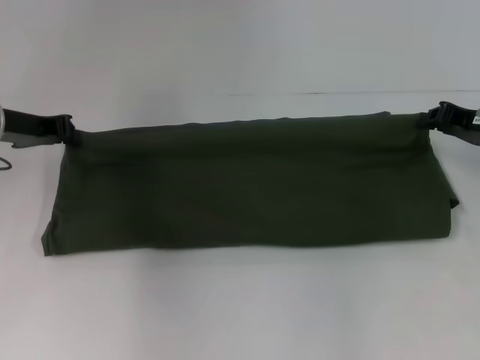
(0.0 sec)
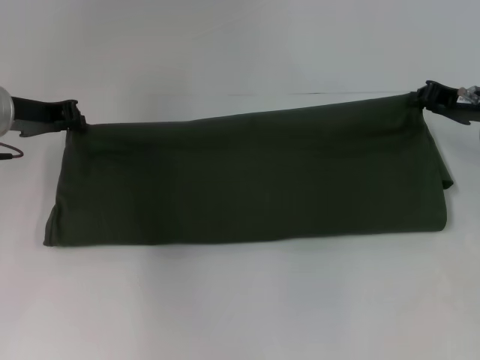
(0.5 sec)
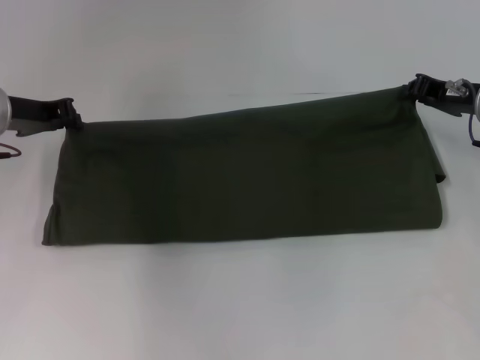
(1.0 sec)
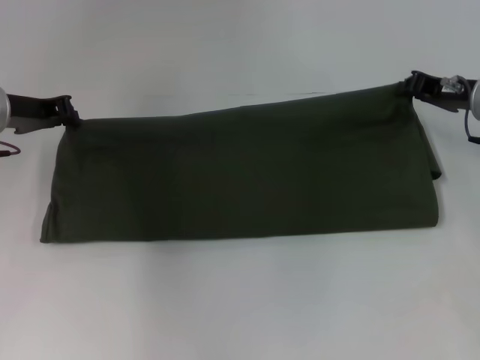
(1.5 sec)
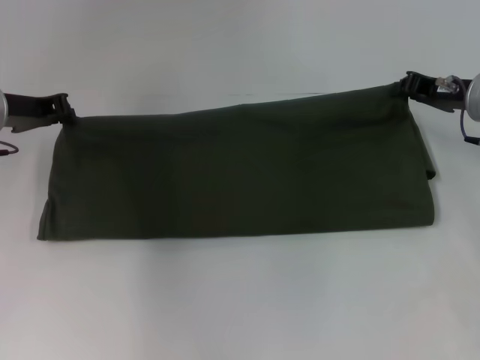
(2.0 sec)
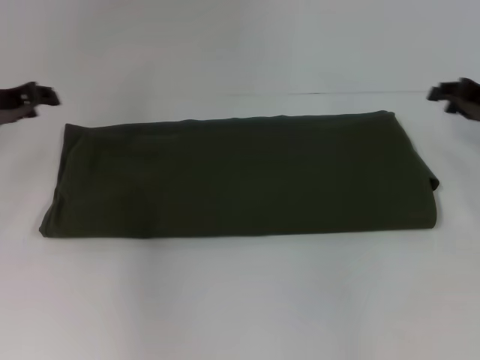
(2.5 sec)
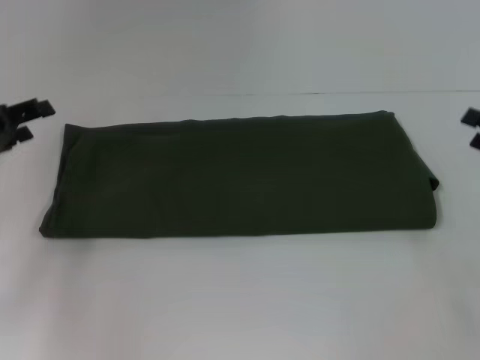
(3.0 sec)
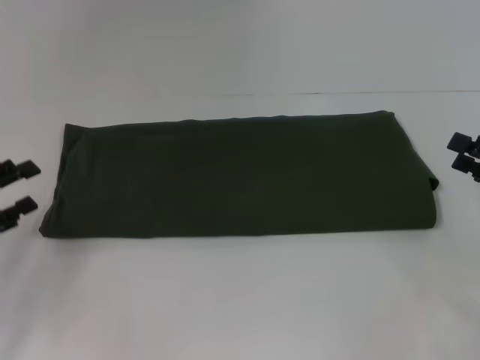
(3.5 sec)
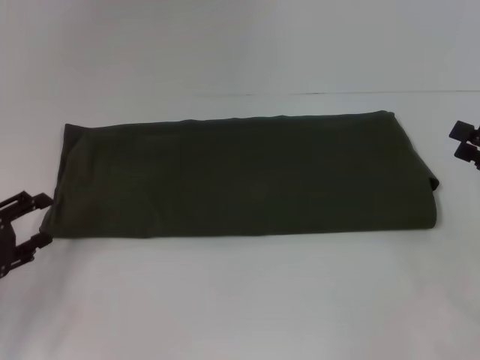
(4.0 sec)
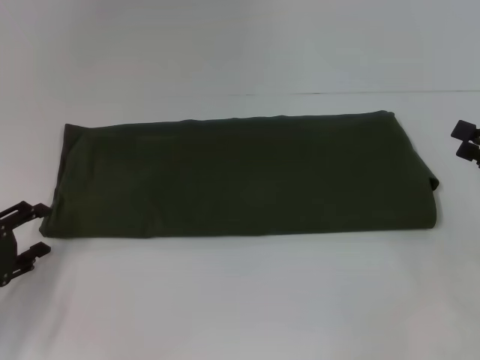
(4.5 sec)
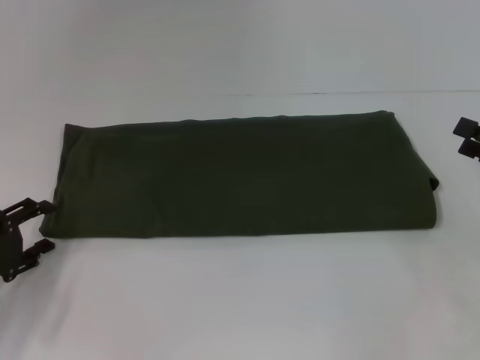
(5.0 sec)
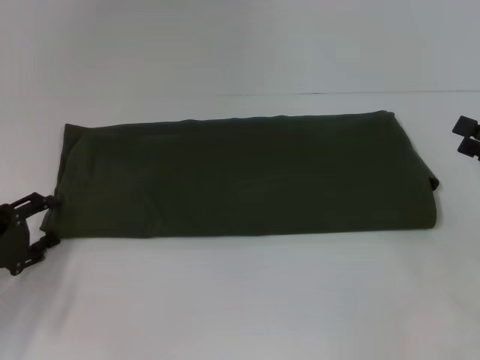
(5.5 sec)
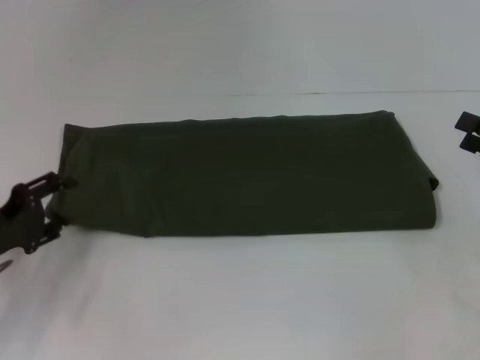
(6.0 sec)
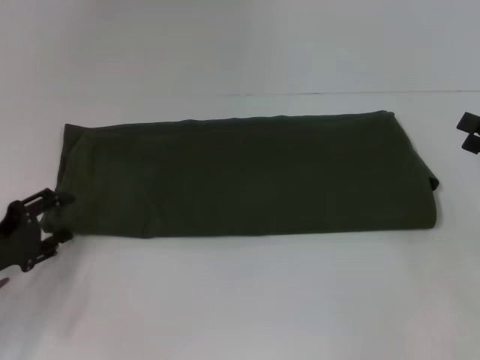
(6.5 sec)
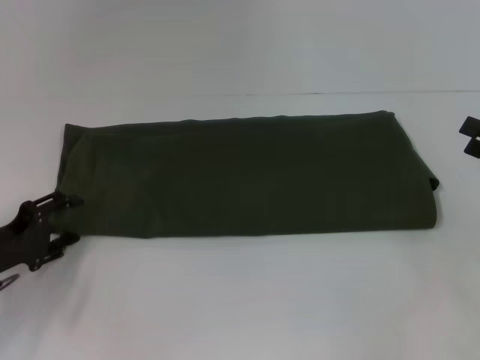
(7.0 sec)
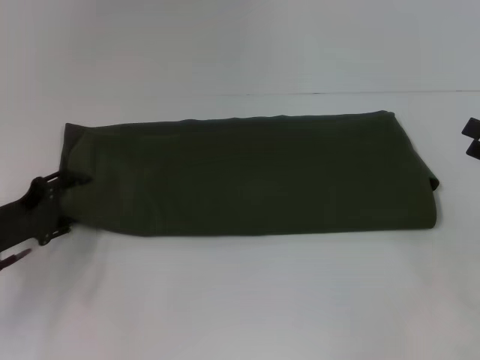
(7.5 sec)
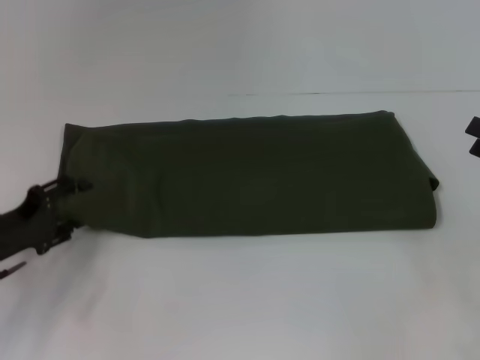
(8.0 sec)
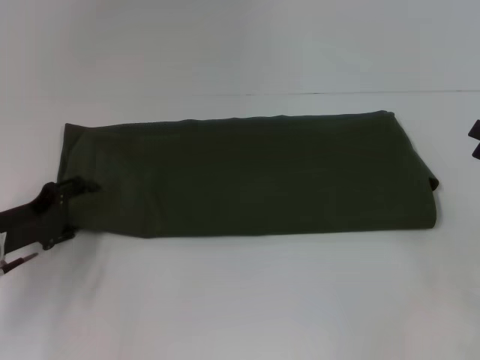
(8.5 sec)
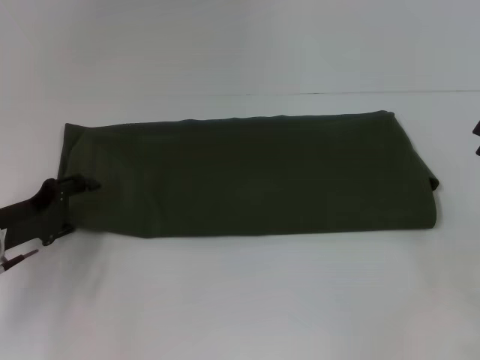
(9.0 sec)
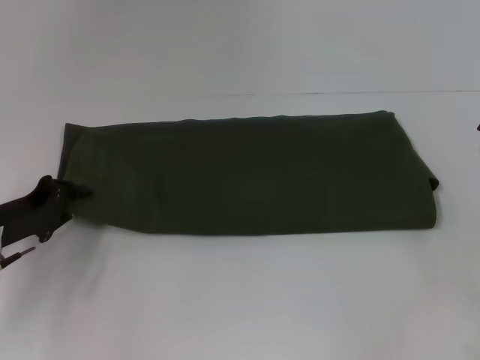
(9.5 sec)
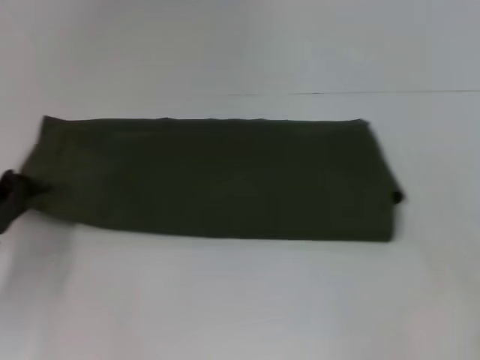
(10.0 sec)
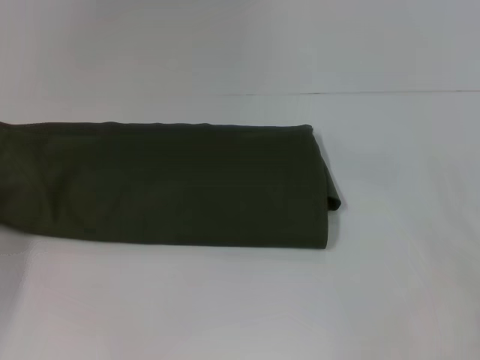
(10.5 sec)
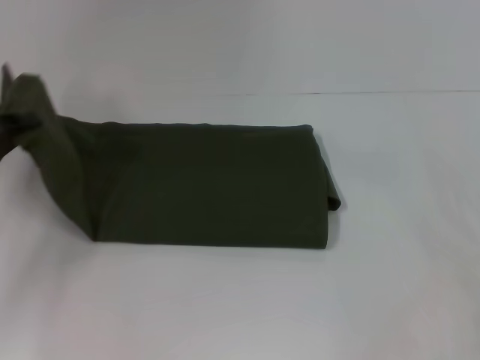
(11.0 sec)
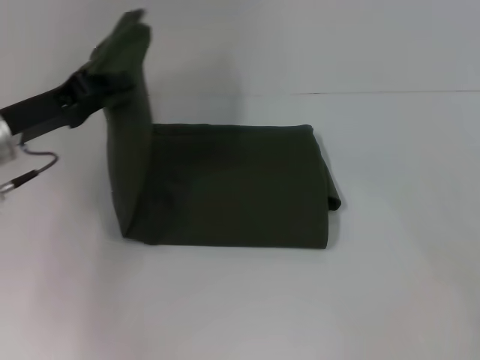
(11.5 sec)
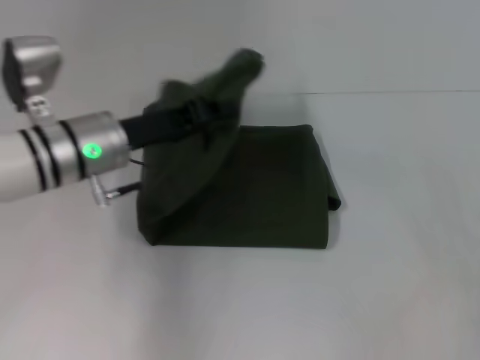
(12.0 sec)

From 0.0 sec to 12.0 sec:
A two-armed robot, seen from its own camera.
Step, from 0.0 sec to 2.0 sec: Fold the clothes with your right hand.
From 0.0 sec to 2.0 sec: The right gripper ends up about 5 cm from where it was.
From 2.0 sec to 4.0 sec: The right gripper travels backward and to the right by about 15 cm, and opens its fingers. Meanwhile the left gripper is displaced backward and downward by some 20 cm, and opens its fingers.
From 4.0 sec to 6.0 sec: The grippers move only a little.
From 6.0 sec to 8.0 sec: The grippers make only small movements.
From 8.0 sec to 10.0 sec: The left gripper closes up.
From 10.0 sec to 12.0 sec: The left gripper heads to the right and upward, covering roughly 20 cm.

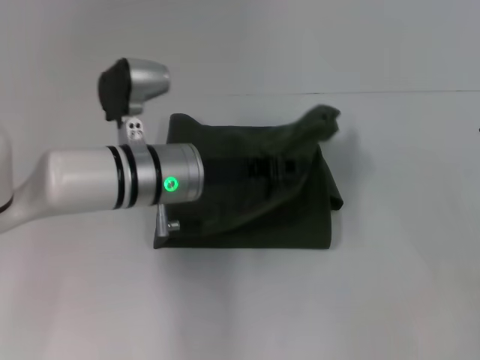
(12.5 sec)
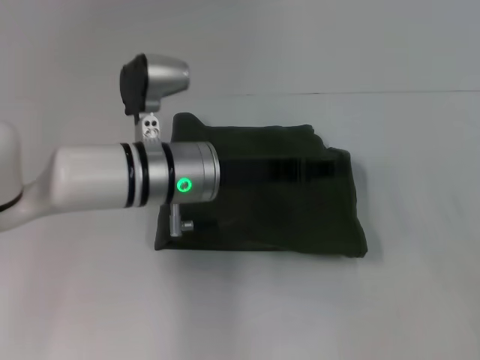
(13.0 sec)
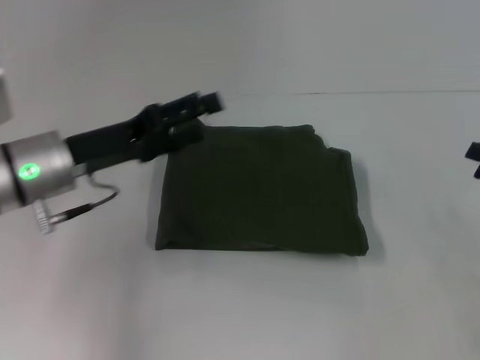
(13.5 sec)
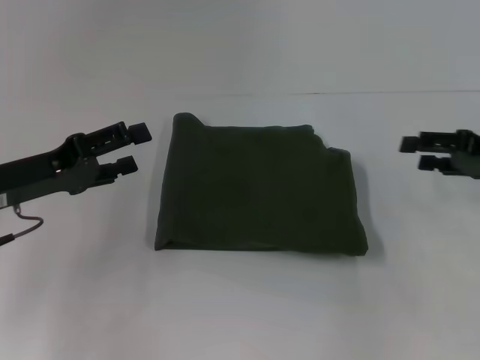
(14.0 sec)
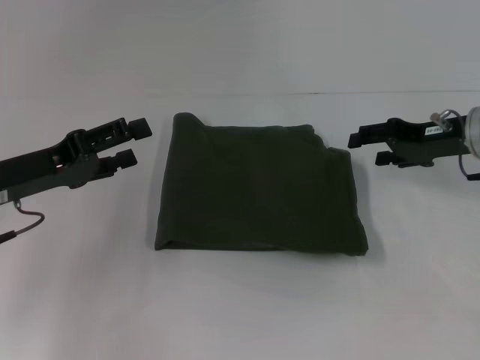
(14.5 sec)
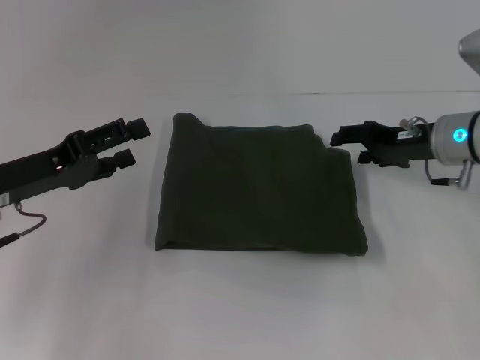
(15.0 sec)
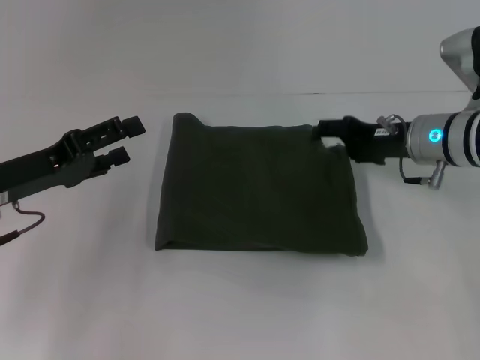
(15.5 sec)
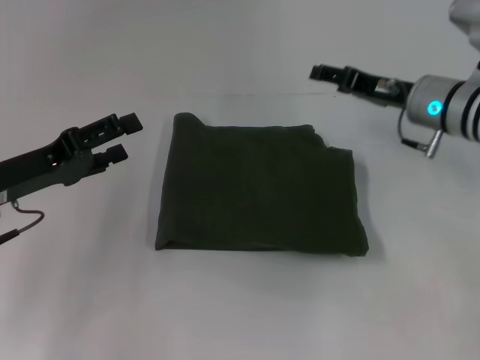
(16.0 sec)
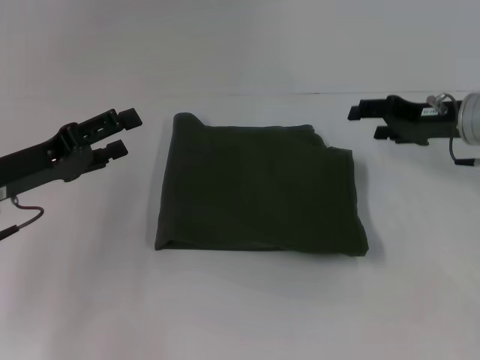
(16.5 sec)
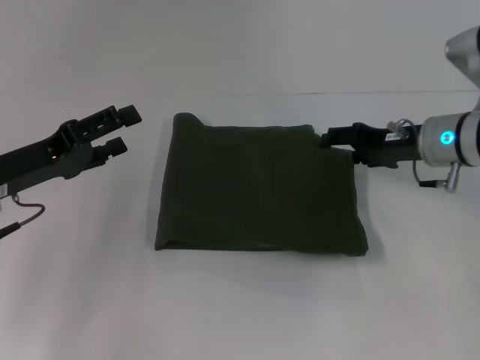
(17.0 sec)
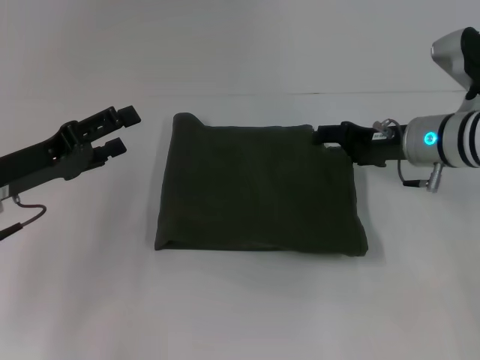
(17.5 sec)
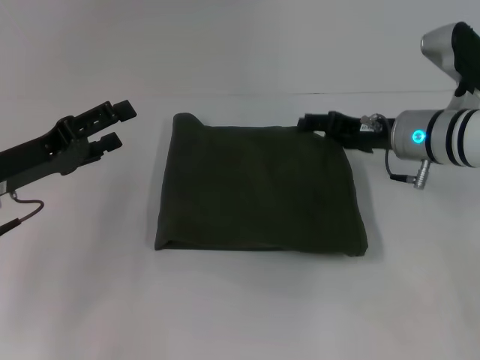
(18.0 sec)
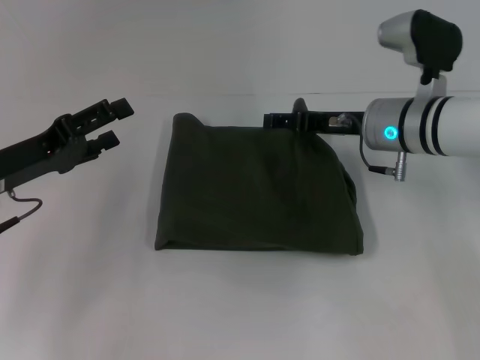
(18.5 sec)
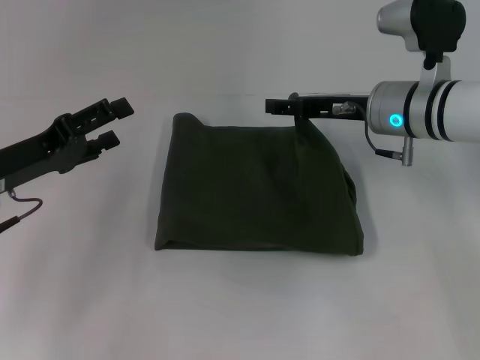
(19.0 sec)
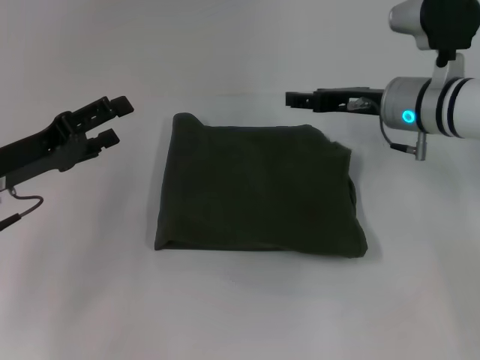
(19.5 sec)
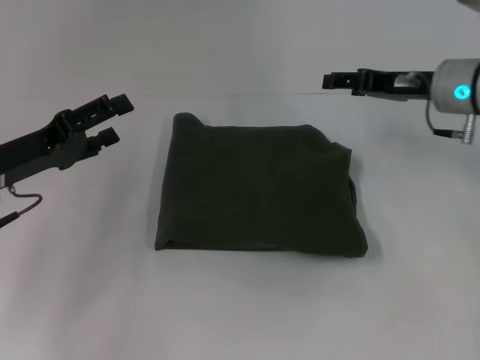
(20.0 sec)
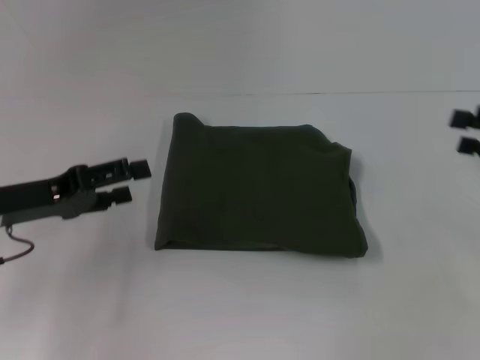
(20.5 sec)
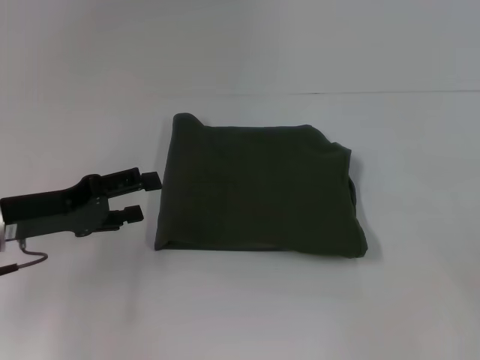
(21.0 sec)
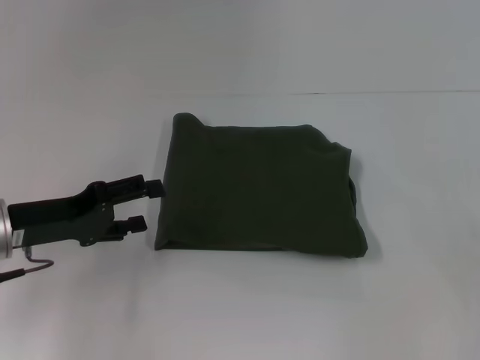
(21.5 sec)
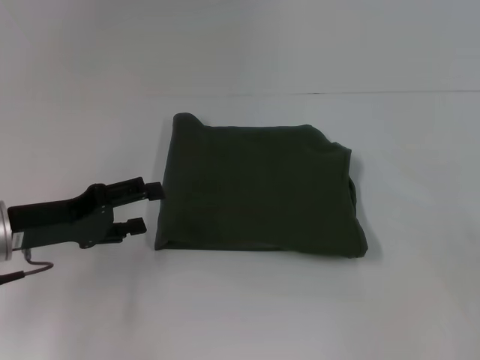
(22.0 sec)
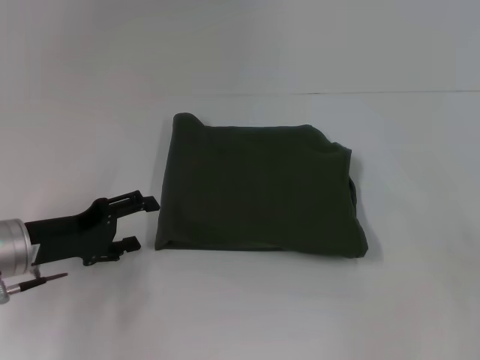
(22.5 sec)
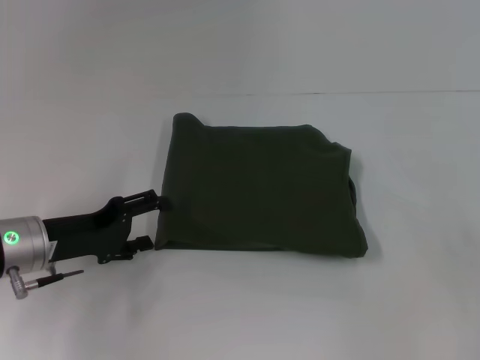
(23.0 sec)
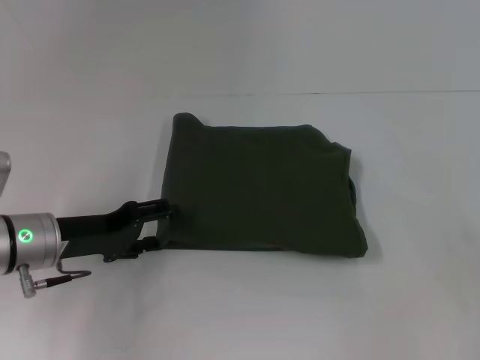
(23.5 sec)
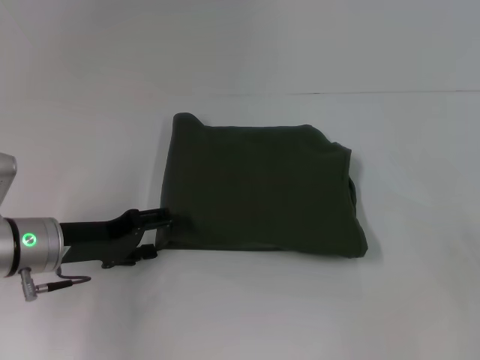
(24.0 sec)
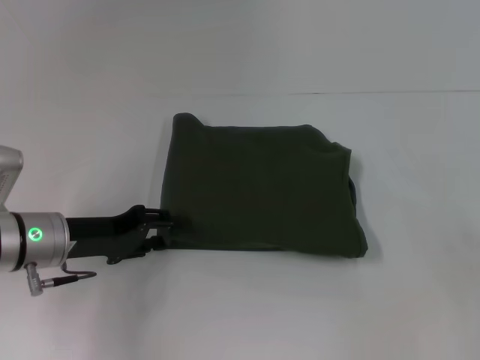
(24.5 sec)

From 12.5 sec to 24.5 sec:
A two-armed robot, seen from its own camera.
From 12.5 sec to 14.5 sec: The left gripper travels to the left by approximately 15 cm, and opens its fingers. The right gripper shifts approximately 15 cm forward and to the left.
From 16.5 sec to 18.5 sec: The right gripper shifts roughly 10 cm to the left.
From 18.5 sec to 20.5 sec: The right gripper shifts roughly 20 cm to the right and backward.
From 20.5 sec to 22.5 sec: The left gripper moves downward, some 5 cm.
From 22.5 sec to 24.5 sec: The grippers move only a little.

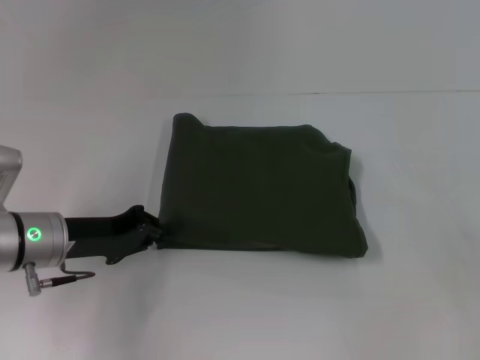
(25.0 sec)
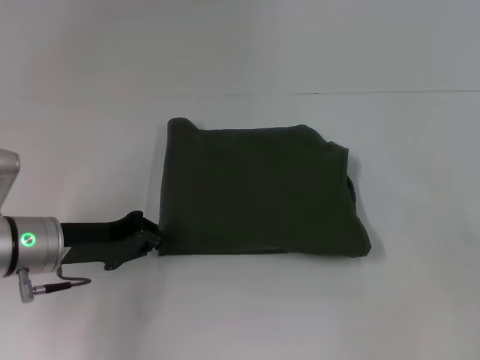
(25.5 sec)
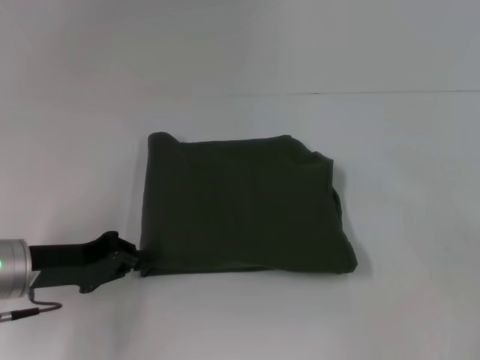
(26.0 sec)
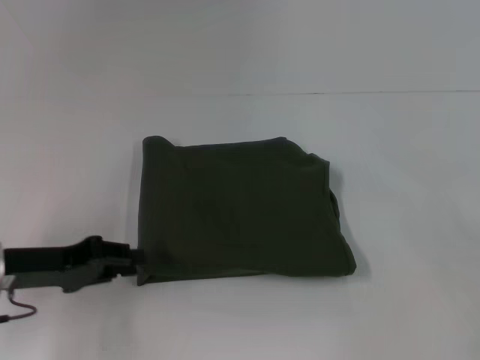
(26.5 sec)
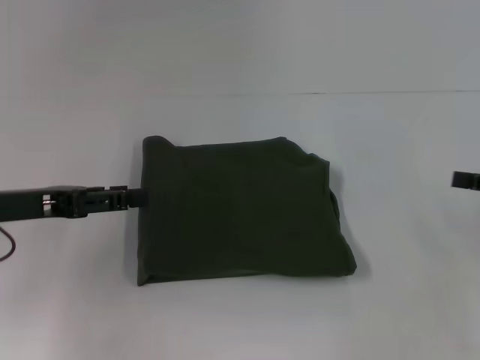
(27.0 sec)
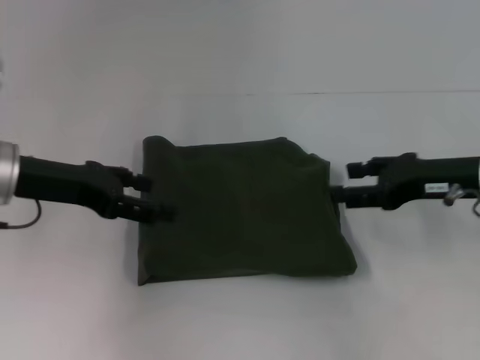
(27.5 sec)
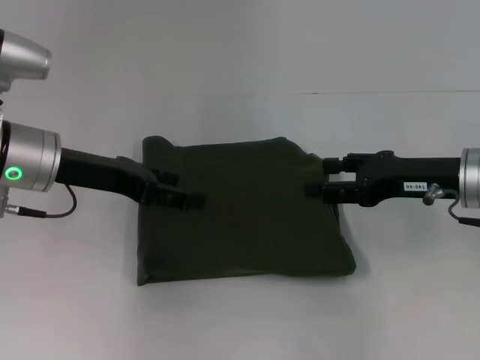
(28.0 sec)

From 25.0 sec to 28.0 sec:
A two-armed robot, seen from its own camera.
From 25.0 sec to 26.5 sec: The left gripper ends up roughly 5 cm from where it was.
From 26.5 sec to 28.0 sec: The left gripper goes approximately 10 cm forward, upward and to the right, and opens up, while the right gripper is displaced to the left by some 15 cm.
